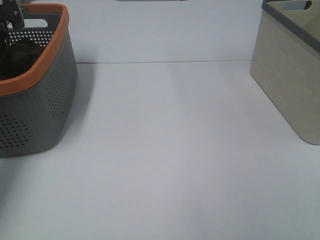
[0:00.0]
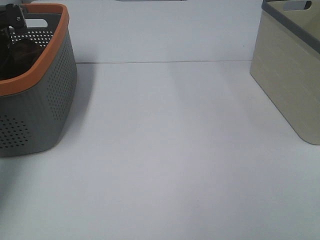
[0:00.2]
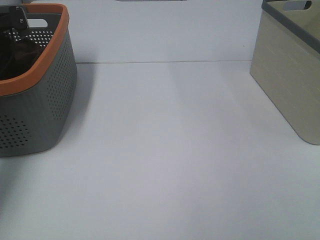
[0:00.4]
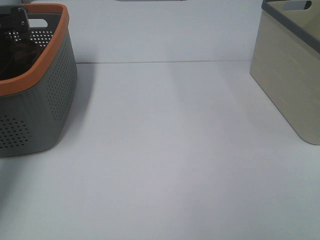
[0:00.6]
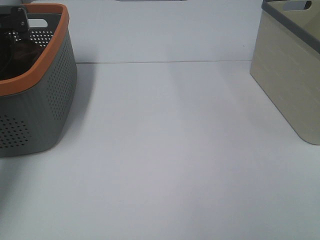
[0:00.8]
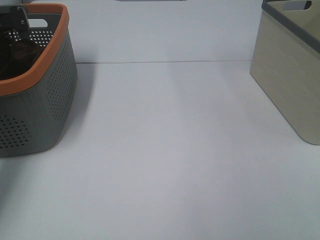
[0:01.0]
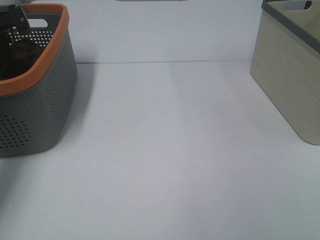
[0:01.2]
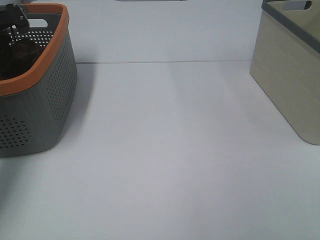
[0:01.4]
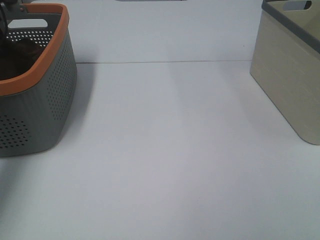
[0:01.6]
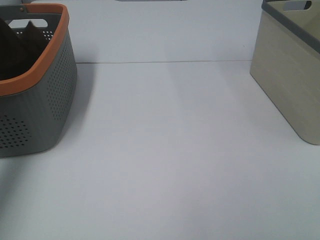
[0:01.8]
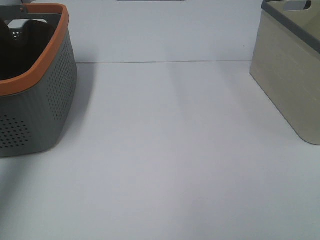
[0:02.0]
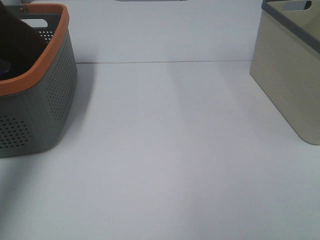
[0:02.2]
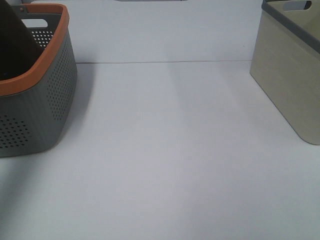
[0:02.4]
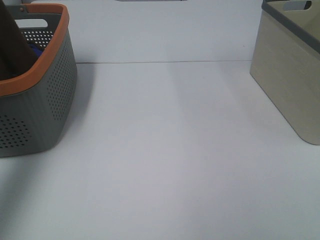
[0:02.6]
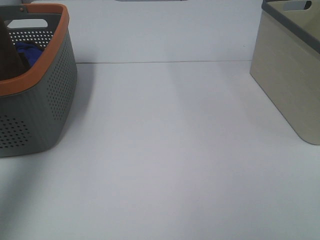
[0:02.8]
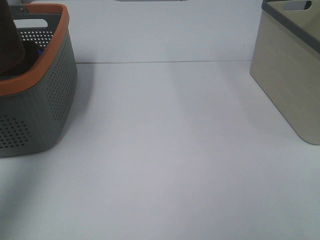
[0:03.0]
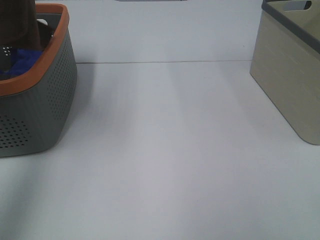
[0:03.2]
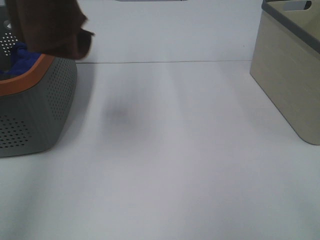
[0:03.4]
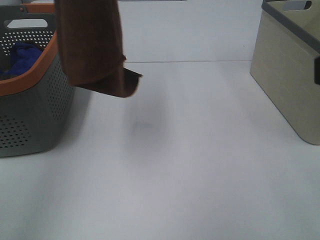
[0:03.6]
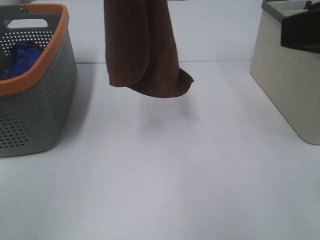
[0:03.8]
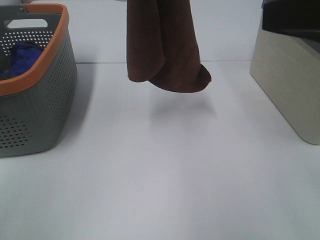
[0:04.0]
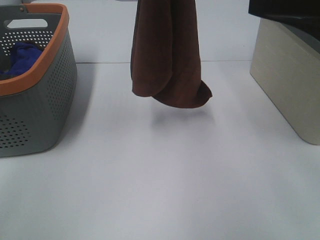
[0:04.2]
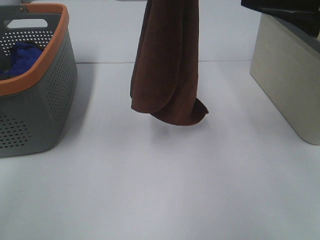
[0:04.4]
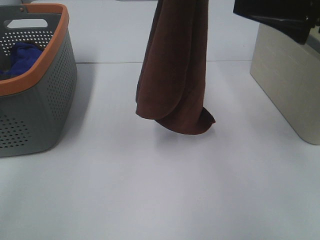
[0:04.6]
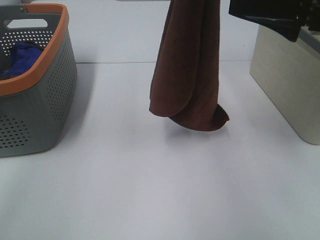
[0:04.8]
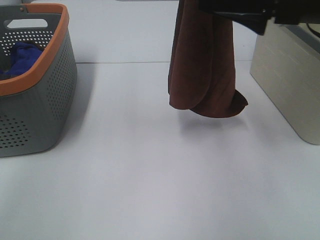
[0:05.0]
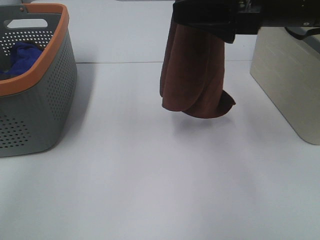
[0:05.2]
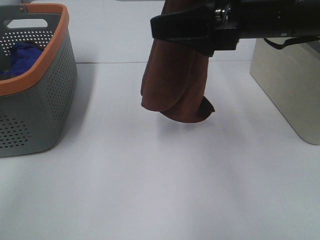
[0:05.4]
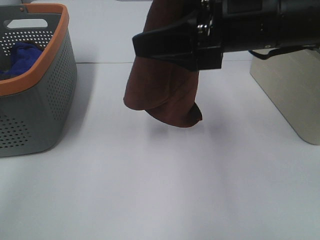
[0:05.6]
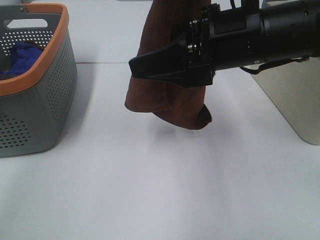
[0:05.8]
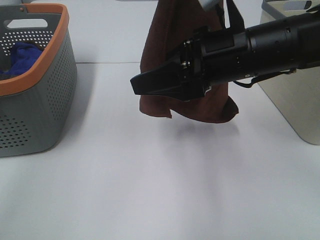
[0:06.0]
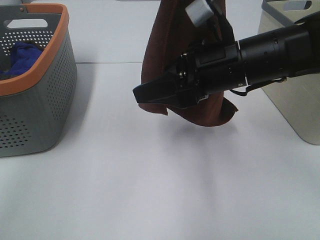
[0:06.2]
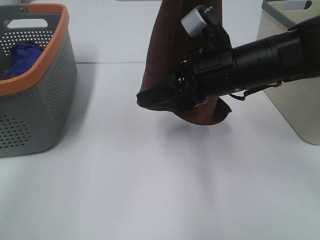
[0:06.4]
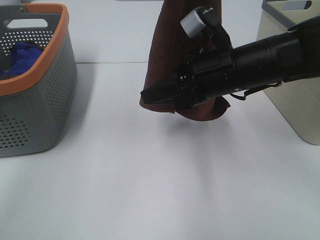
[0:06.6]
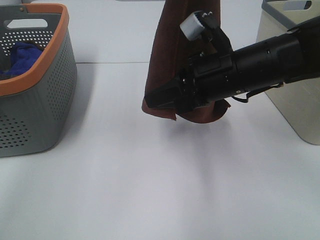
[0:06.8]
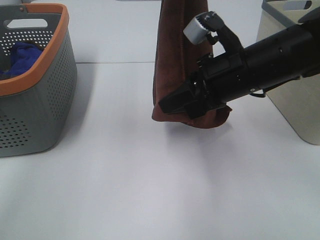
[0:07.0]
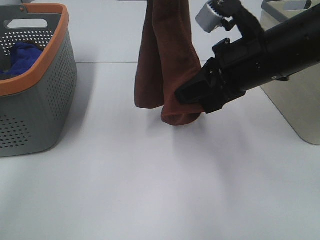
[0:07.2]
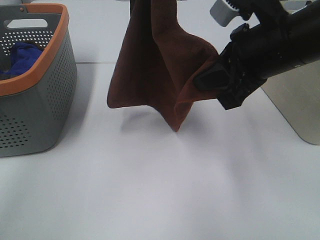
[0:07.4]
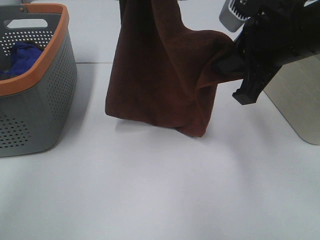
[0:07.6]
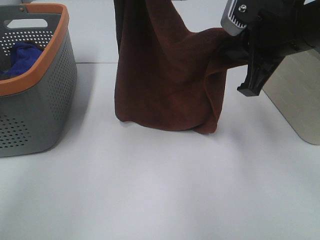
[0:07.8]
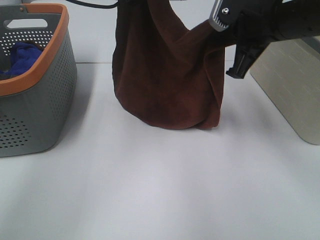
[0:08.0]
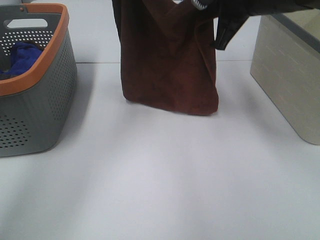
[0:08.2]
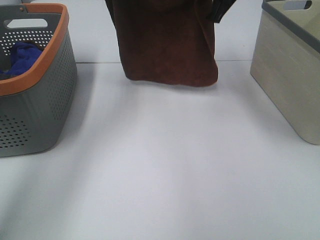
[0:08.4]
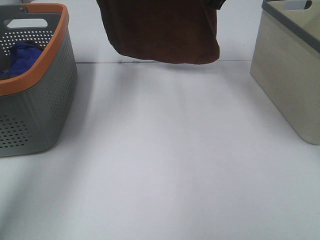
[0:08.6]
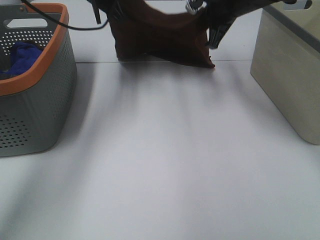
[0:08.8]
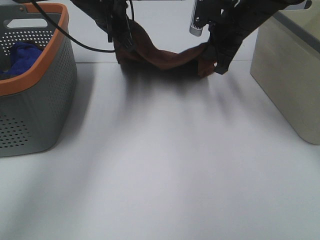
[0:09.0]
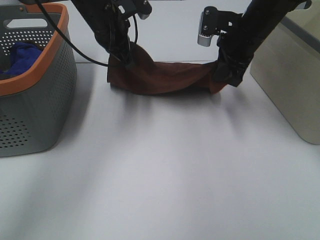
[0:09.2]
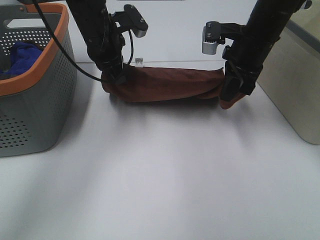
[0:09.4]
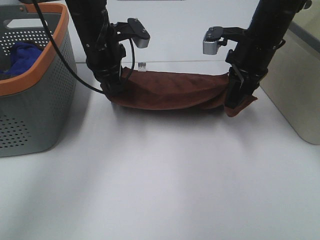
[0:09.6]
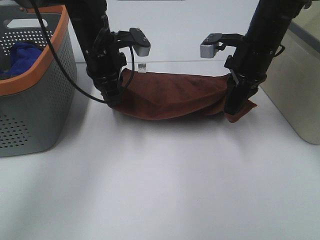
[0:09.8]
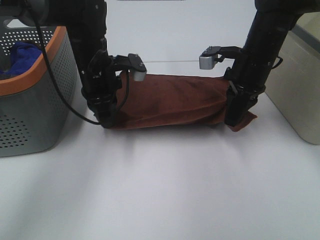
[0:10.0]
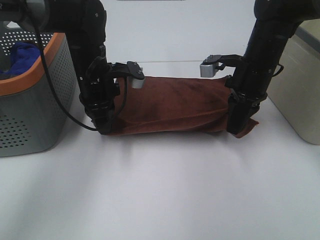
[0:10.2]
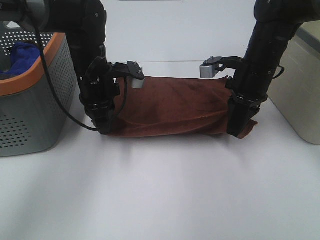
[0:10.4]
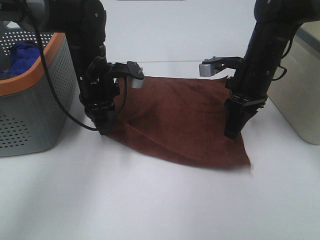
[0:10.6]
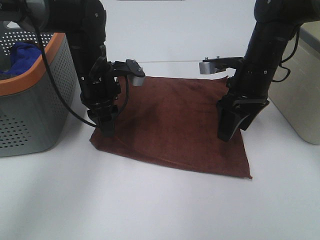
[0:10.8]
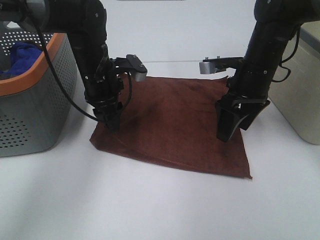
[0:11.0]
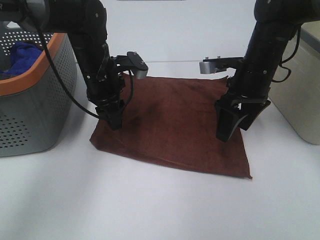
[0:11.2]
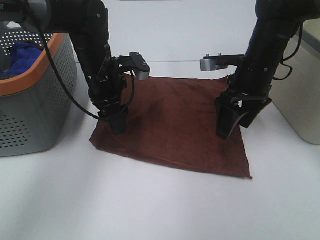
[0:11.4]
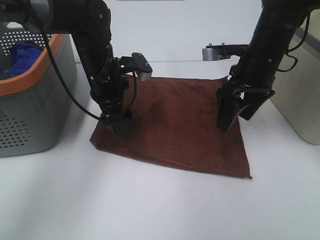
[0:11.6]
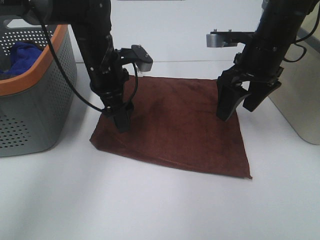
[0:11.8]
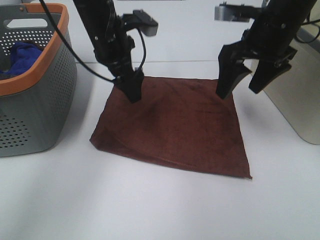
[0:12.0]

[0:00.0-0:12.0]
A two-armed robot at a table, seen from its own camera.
Task of the whole recording: Remove the towel and place it.
Step, 0:02.0 to 0:05.4: Right hand: grab a corner of the brown towel and straighten it.
Step, 0:05.6 to 0:07.0: Right hand: spread the brown towel flat on the table.
Step, 0:05.6 to 0:07.2: Left hand: spread the brown towel flat on the table.
0:01.6 to 0:03.0: The left gripper shifts some 35 cm upward and backward.
0:03.0 to 0:04.4: The right gripper goes approximately 20 cm forward; the left gripper heads to the right, covering approximately 20 cm.
0:04.4 to 0:06.0: The right gripper heads to the left, downward and forward, covering about 15 cm, and closes its fingers.
0:06.0 to 0:07.6: The left gripper changes place by about 5 cm, while the right gripper moves upward and to the right, approximately 10 cm, and closes its fingers.
0:07.6 to 0:09.0: The right gripper moves forward, some 20 cm, while the left gripper is displaced downward and forward by some 20 cm.
0:09.0 to 0:10.4: The grippers both shift backward and downward by about 10 cm.
0:10.4 to 0:12.0: The grippers both shift upward by about 10 cm. The right gripper opens its fingers, while the left gripper opens.

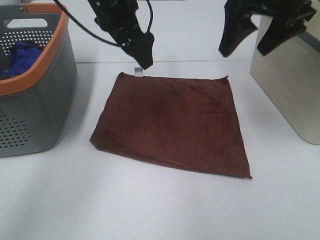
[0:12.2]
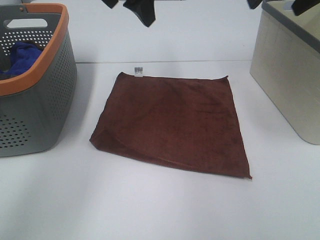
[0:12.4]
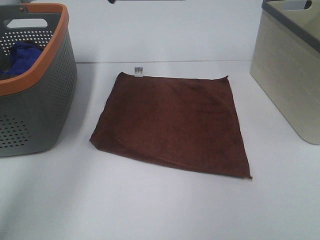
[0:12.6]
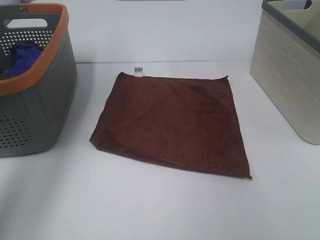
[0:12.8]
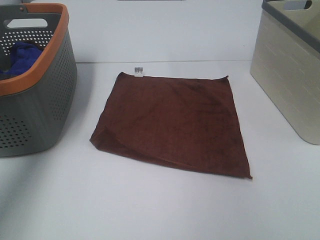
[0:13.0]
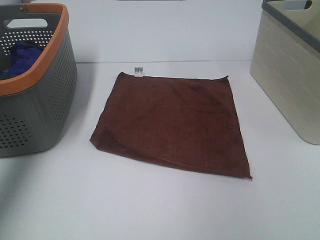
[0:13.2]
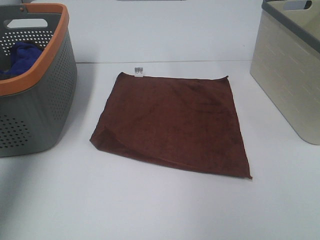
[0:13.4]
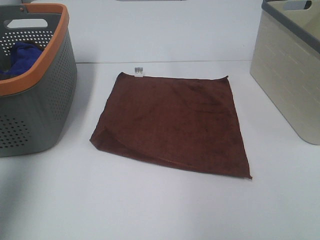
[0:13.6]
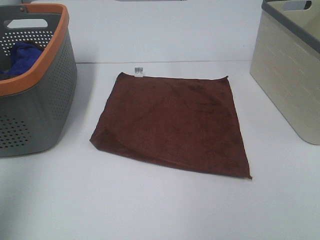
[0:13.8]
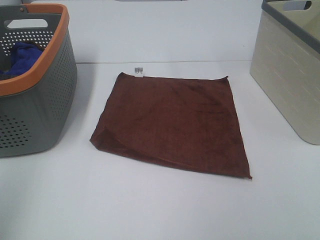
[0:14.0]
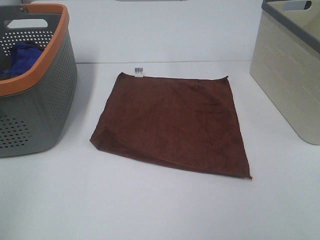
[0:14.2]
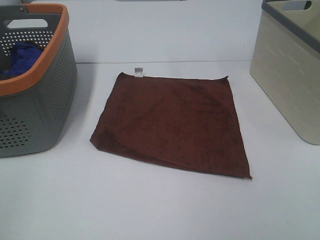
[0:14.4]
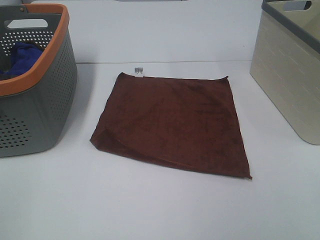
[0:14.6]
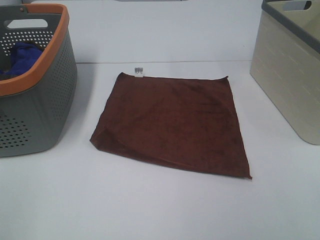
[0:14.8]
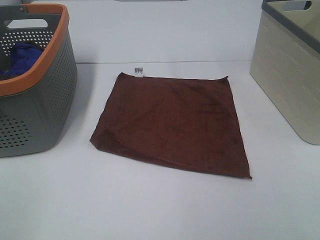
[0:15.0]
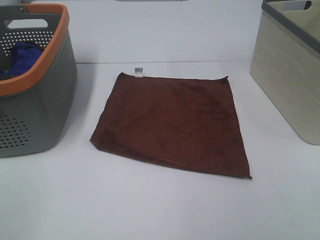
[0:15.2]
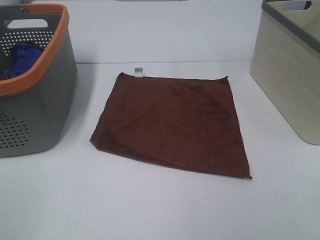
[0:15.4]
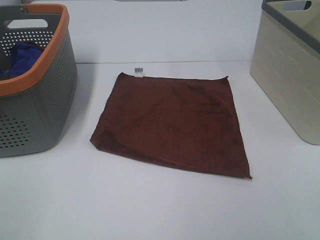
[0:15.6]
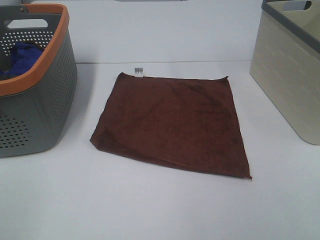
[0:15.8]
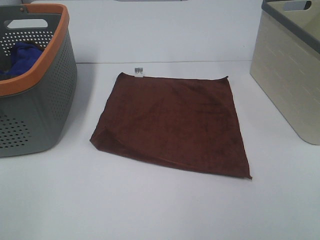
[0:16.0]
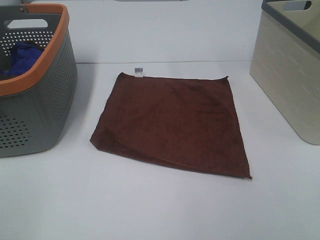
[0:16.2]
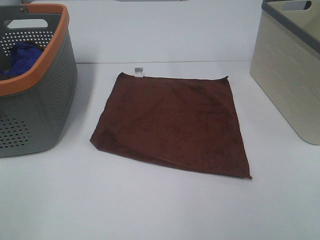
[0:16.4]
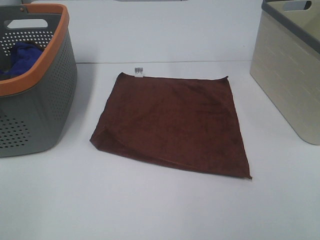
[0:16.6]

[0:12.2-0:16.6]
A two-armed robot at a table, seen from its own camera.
Task of the whole recording: Remove the towel and place it.
0:12.2 to 0:13.6: The right gripper heads backward and to the right, covering some 25 cm; the left gripper travels to the left, backward and upward by about 40 cm.
0:13.6 to 0:15.2: The left gripper goes about 25 cm backward and downward.
0:15.2 to 0:16.6: The two grippers keep their place.

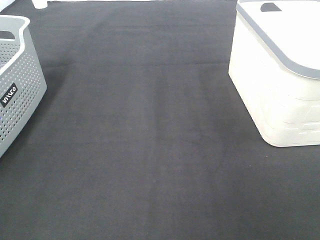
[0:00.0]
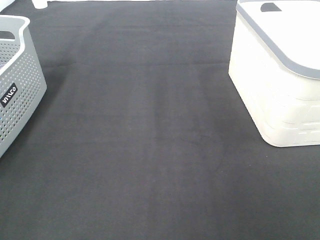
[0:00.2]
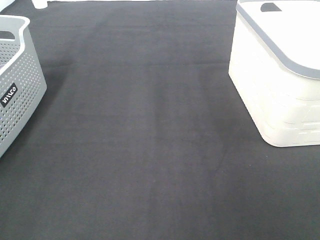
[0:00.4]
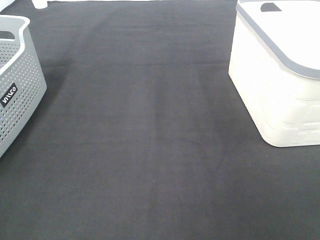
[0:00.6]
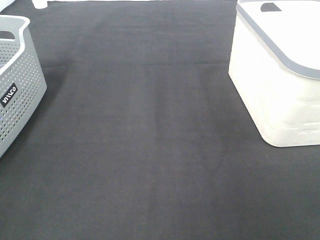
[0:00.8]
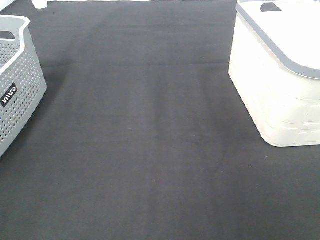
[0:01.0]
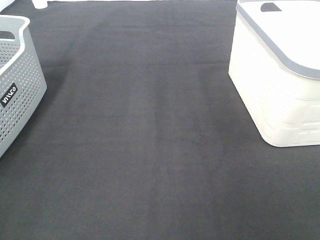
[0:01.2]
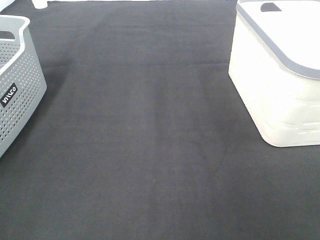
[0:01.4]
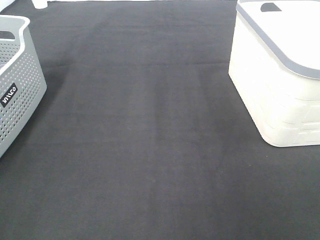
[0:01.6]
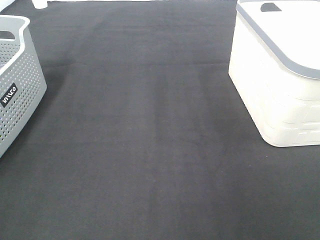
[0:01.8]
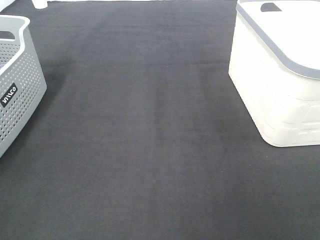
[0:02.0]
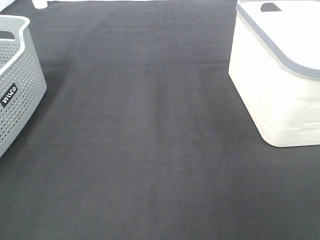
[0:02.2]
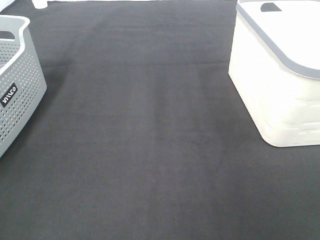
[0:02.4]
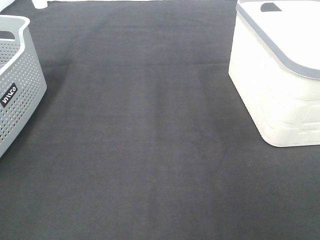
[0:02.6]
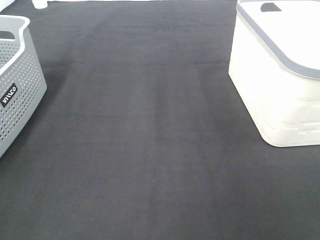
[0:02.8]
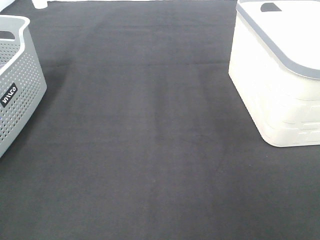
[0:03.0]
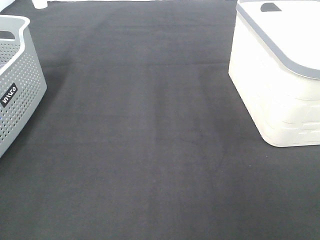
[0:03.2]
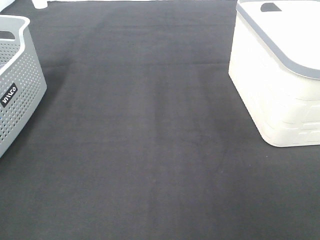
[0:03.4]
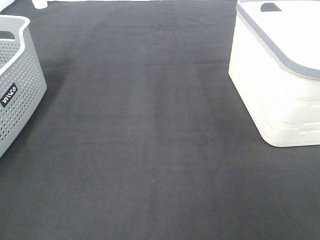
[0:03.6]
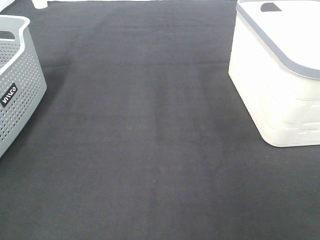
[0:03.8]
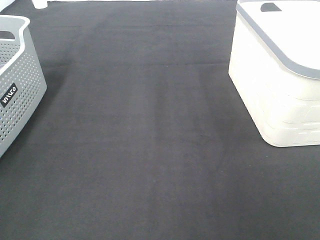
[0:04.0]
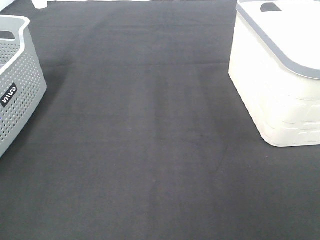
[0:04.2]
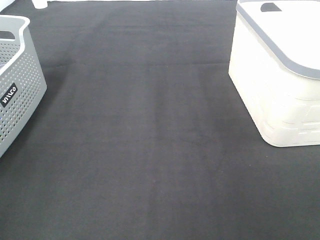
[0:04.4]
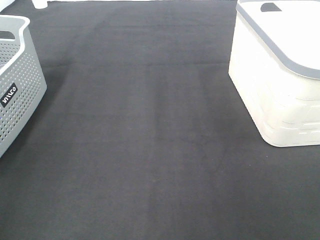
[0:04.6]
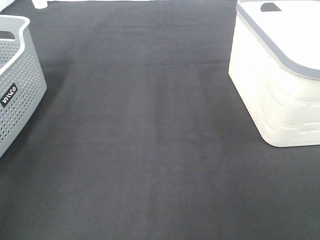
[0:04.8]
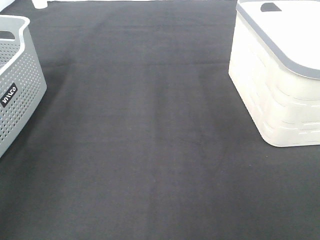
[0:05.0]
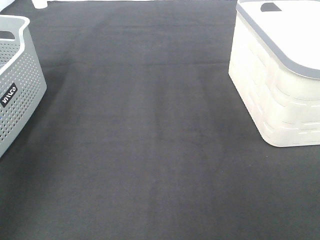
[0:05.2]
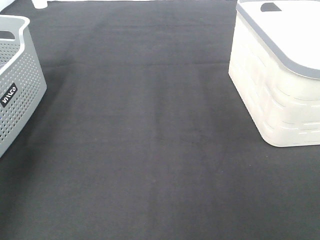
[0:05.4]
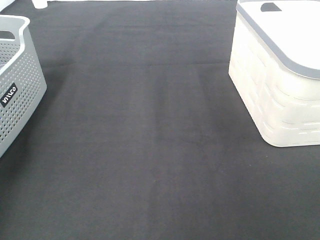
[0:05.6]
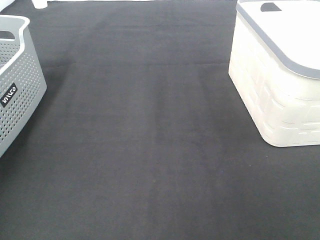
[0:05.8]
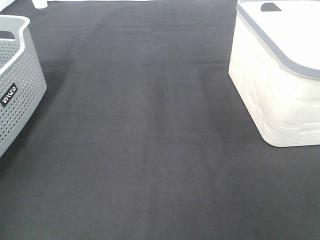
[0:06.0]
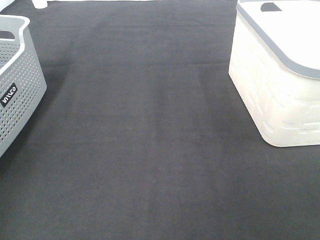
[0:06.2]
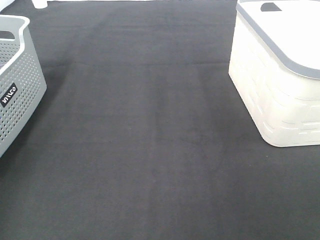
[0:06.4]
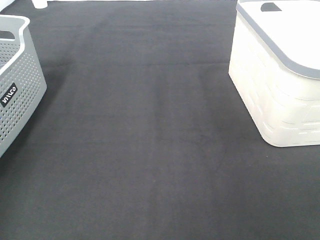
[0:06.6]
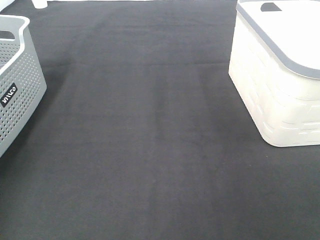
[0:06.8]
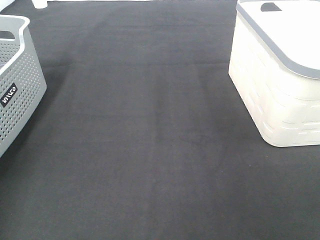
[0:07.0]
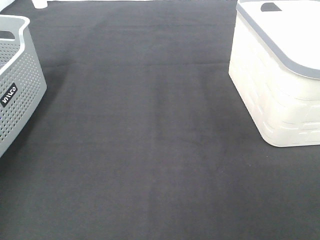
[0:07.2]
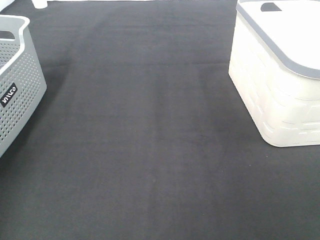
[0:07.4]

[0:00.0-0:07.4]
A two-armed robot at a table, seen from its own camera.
Task of the whole recording: Remove the towel and place it.
0:00.0 to 0:03.0: Neither gripper changes place.
